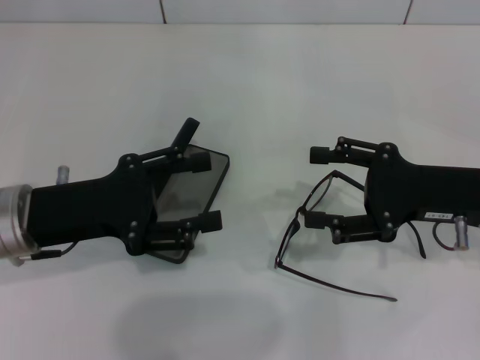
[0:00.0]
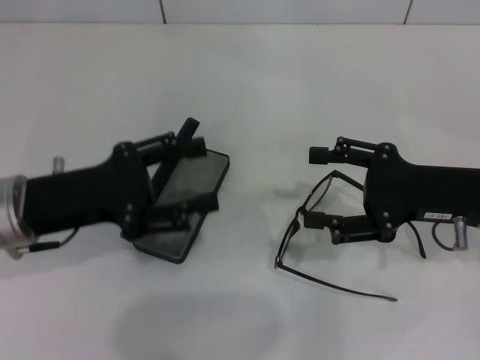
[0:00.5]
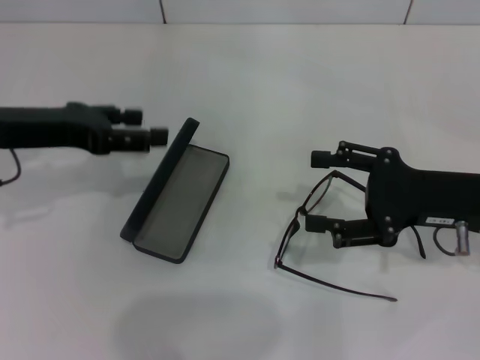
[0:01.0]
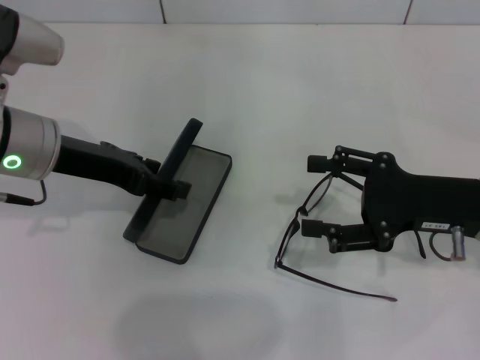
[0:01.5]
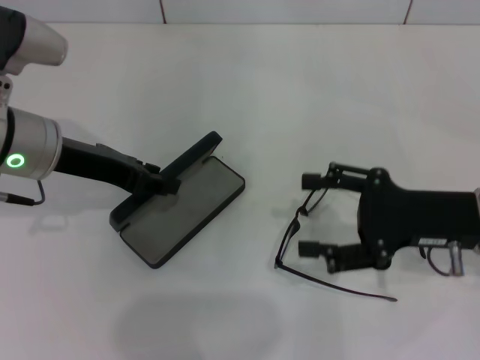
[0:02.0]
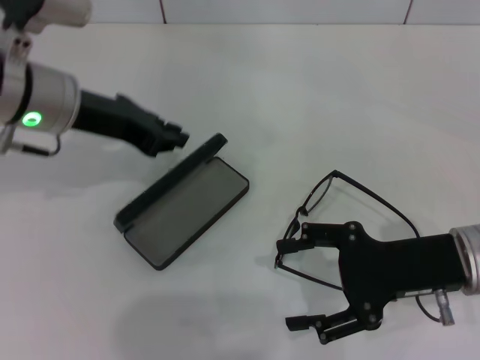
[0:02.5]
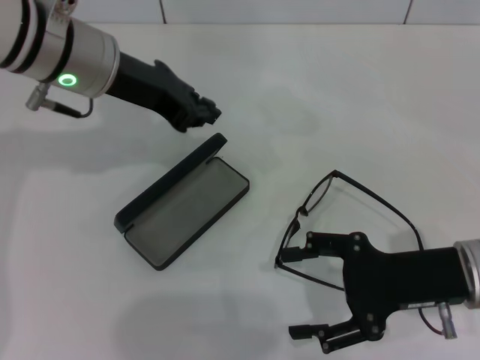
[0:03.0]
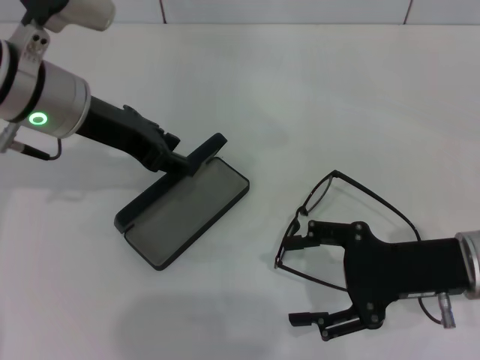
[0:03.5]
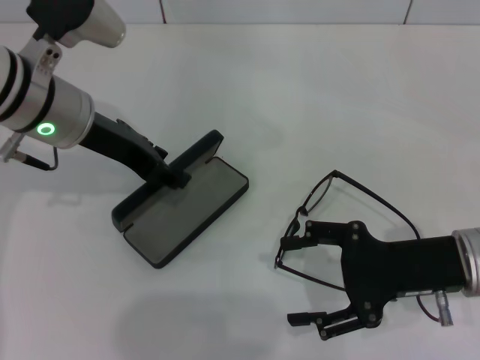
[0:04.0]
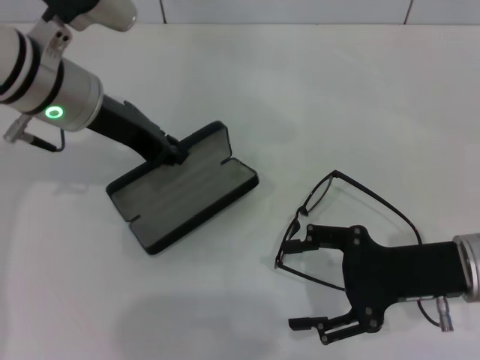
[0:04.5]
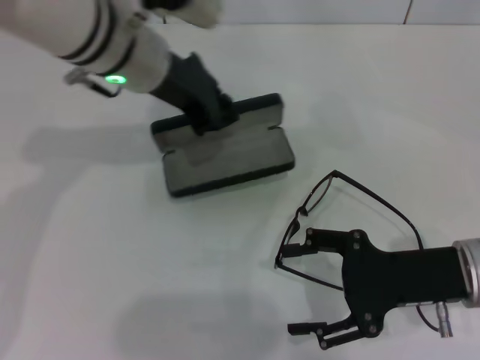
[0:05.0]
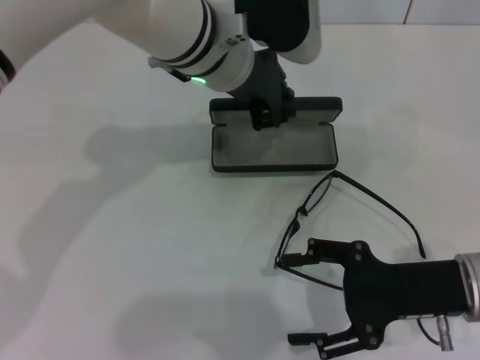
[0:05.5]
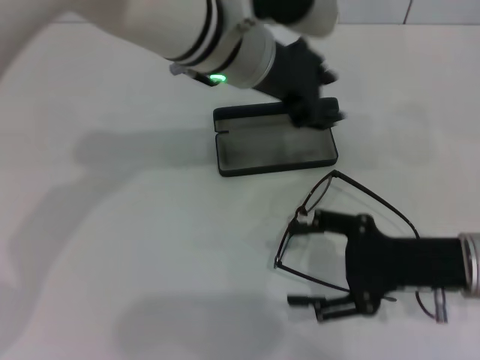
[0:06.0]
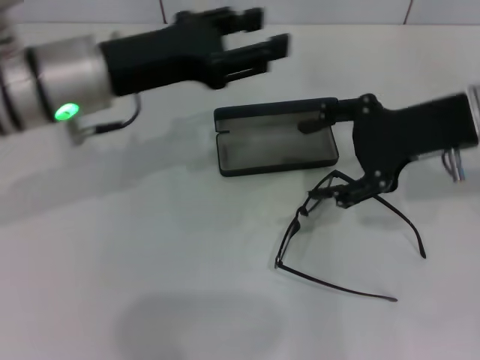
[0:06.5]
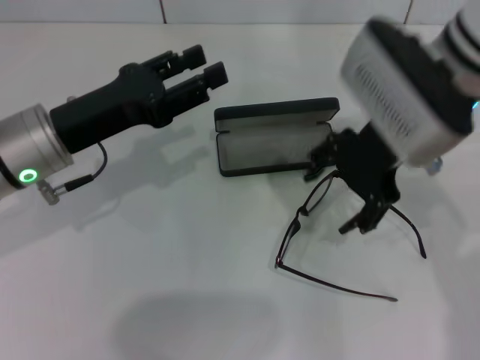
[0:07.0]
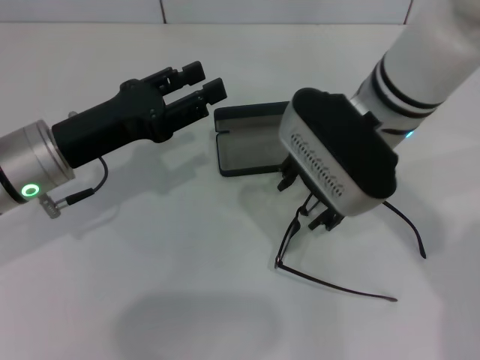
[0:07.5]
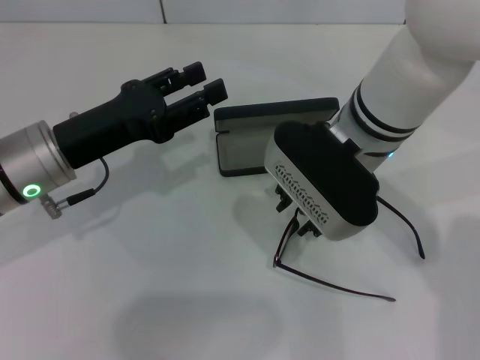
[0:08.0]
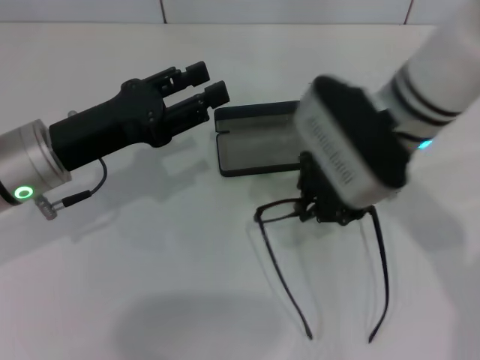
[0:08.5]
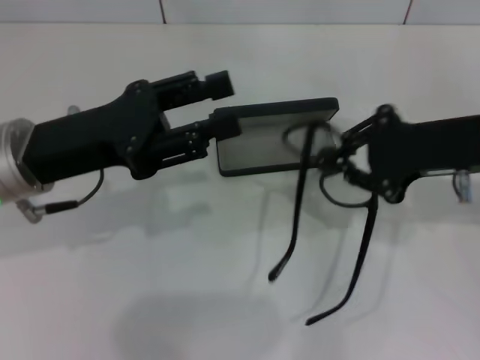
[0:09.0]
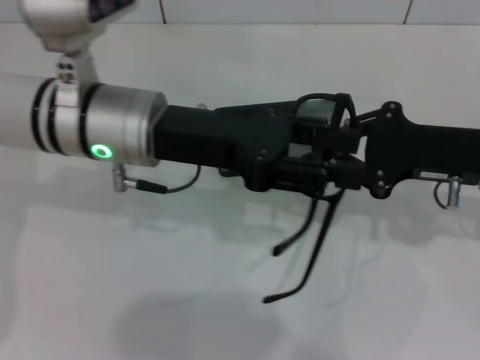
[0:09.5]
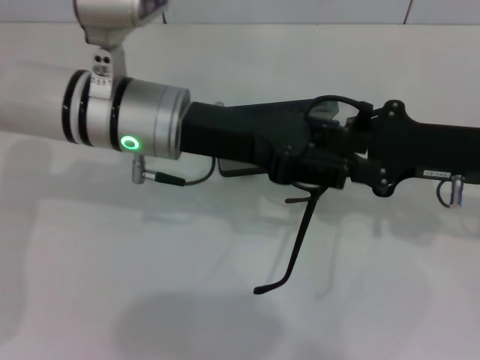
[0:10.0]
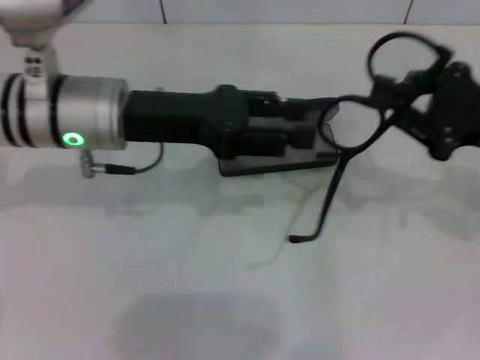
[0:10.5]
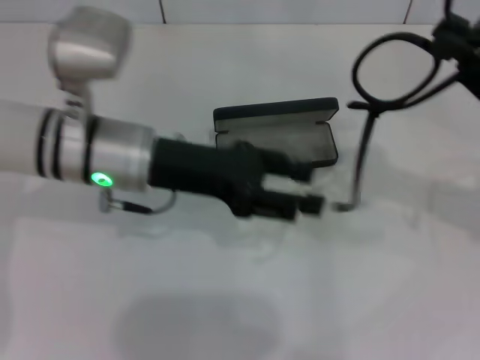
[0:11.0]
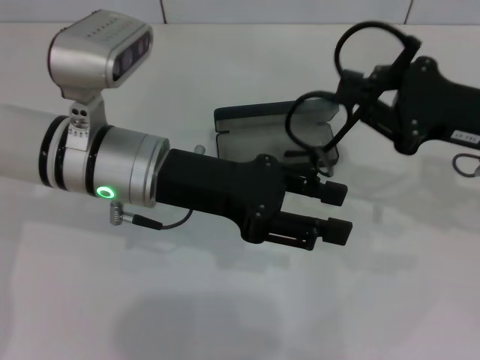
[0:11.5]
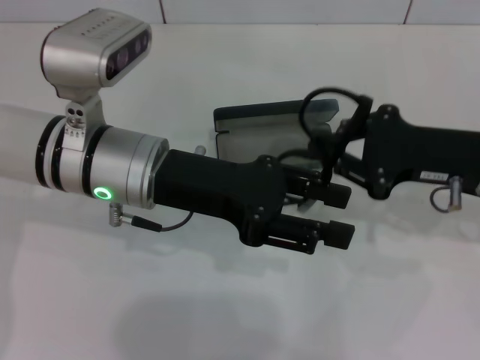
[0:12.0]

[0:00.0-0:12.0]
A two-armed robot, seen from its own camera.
Step, 0:00.0 to 0:04.0: Grab the glasses case with your left hand.
Step, 0:04.5 to 0:05.5: Place the glasses case in the center of the table with your left hand.
Step, 0:06.0 to 0:08.0: Grab the eyeglass frame with your right hand.
0:00.0 to 0:02.0: The left gripper goes about 5 cm forward.
0:02.0 to 0:04.0: The left gripper closes, then reopens.
0:04.0 to 0:06.0: The left gripper shifts about 15 cm to the right, and closes up.
0:06.0 to 0:08.0: The right gripper moves to the left, upward and forward, about 20 cm, and closes. The left gripper heads to the left, downward and backward, covering about 20 cm.
0:08.0 to 0:10.0: The left gripper heads to the right and upward, covering some 10 cm. Meanwhile the right gripper travels to the right by about 15 cm, and closes up.

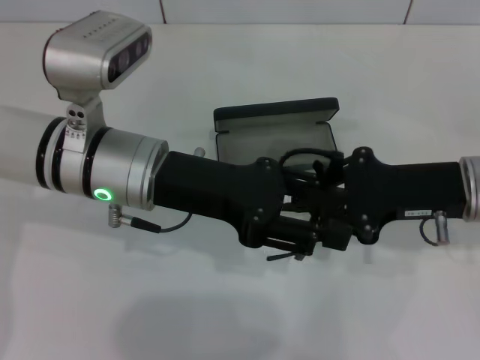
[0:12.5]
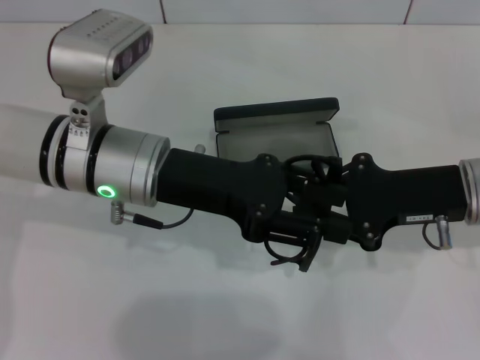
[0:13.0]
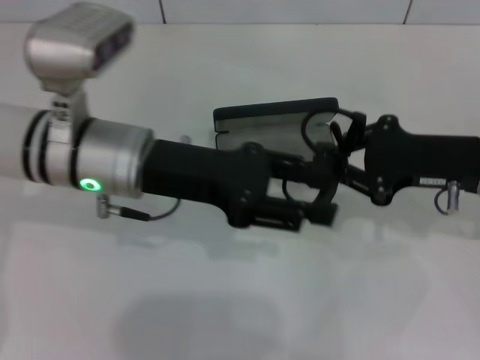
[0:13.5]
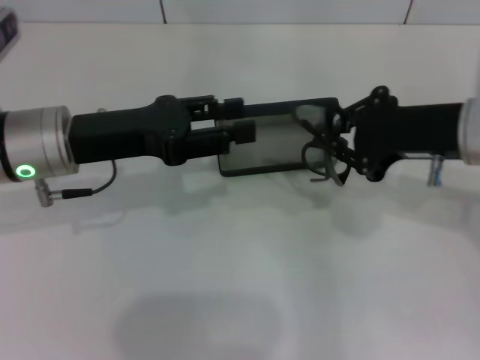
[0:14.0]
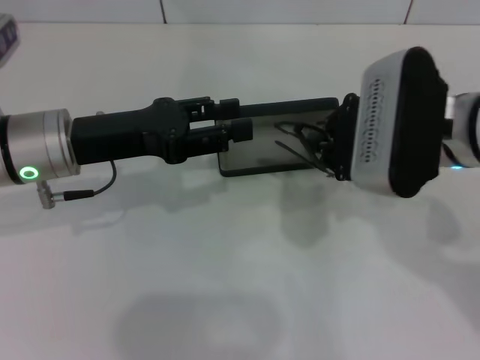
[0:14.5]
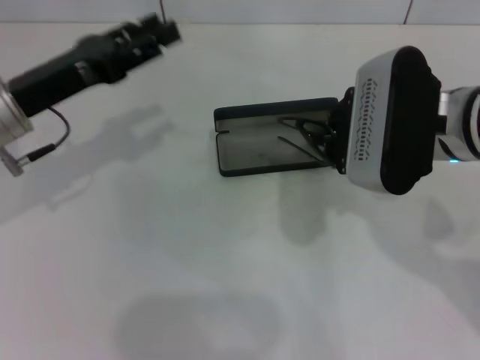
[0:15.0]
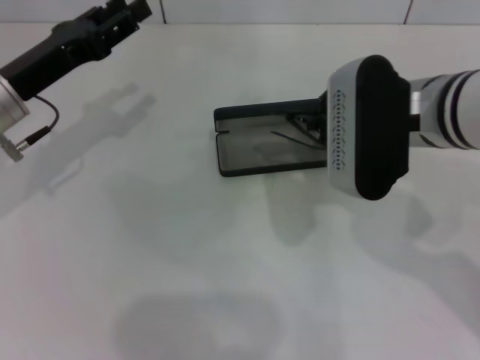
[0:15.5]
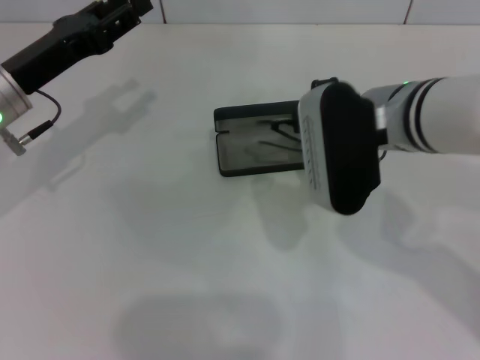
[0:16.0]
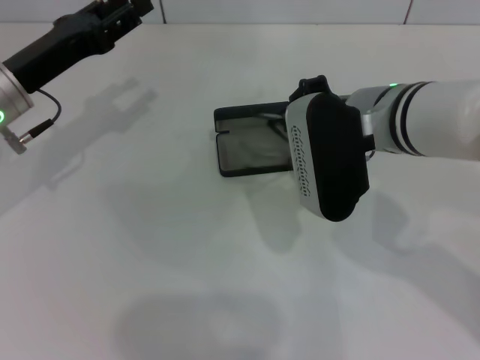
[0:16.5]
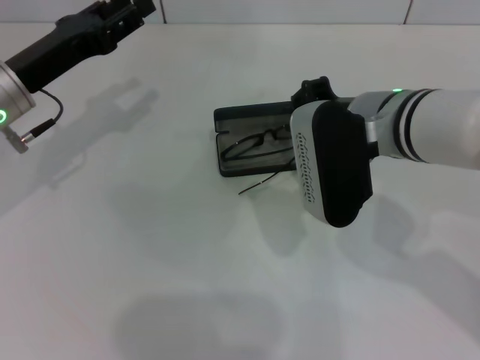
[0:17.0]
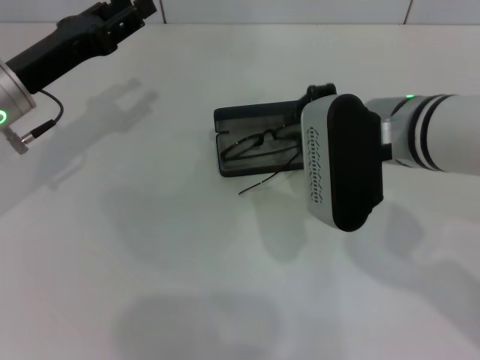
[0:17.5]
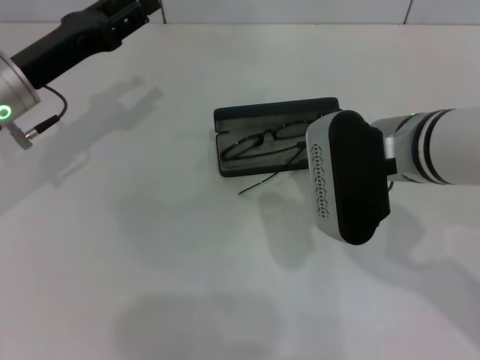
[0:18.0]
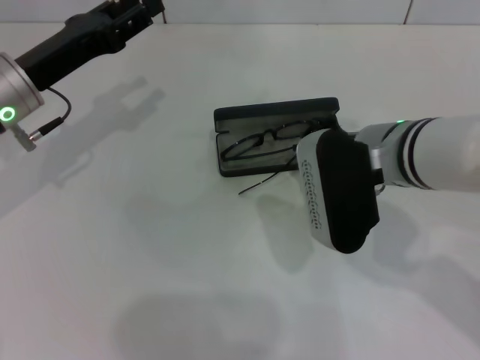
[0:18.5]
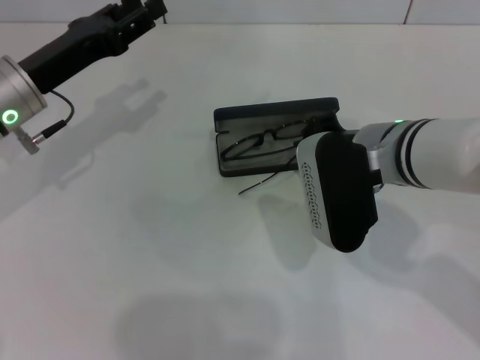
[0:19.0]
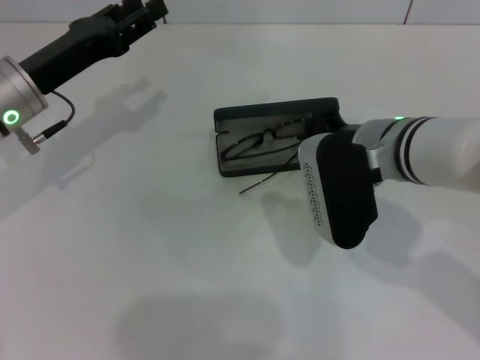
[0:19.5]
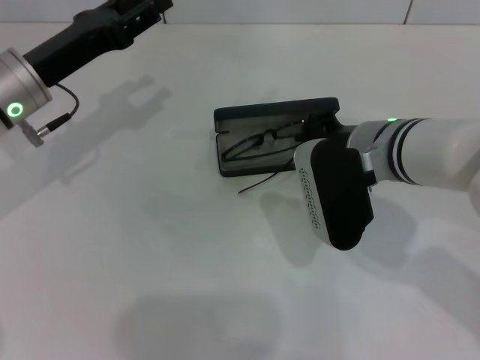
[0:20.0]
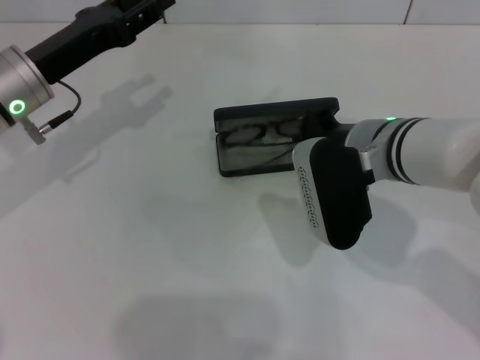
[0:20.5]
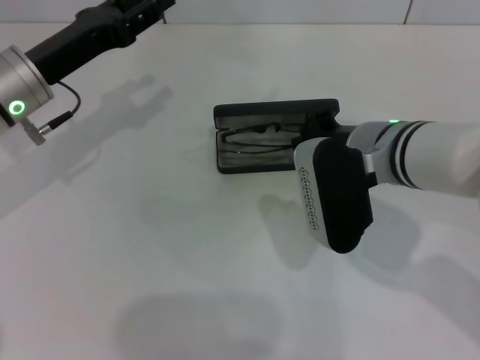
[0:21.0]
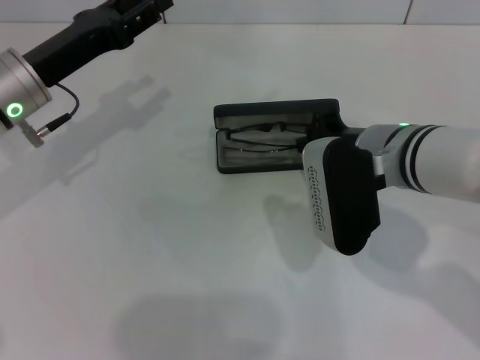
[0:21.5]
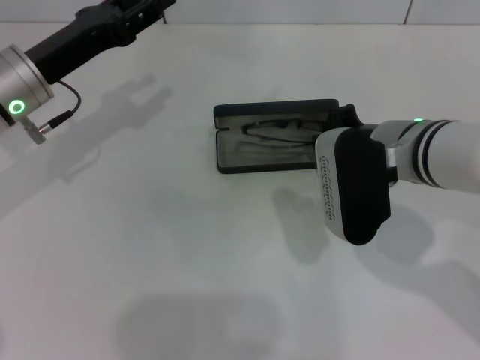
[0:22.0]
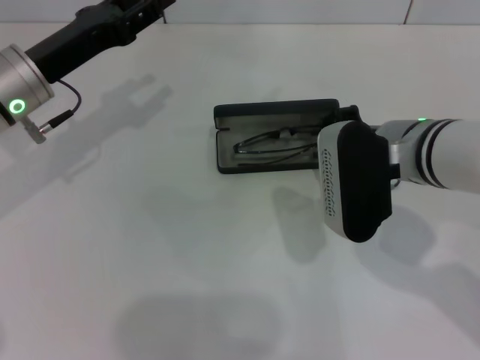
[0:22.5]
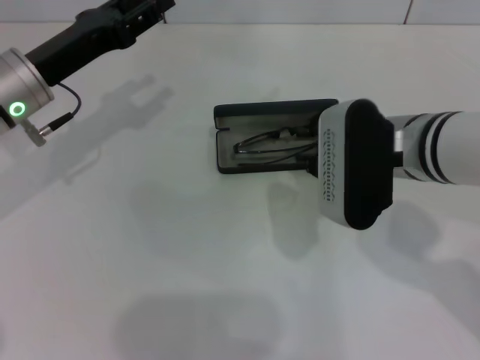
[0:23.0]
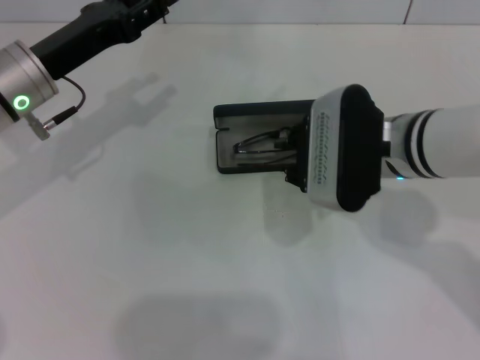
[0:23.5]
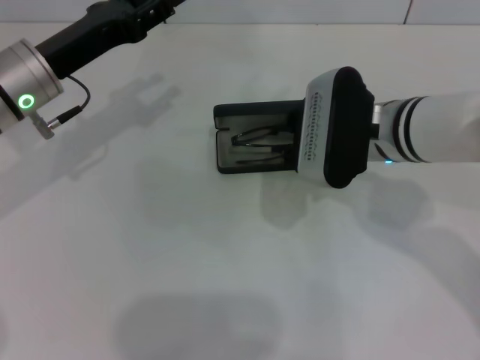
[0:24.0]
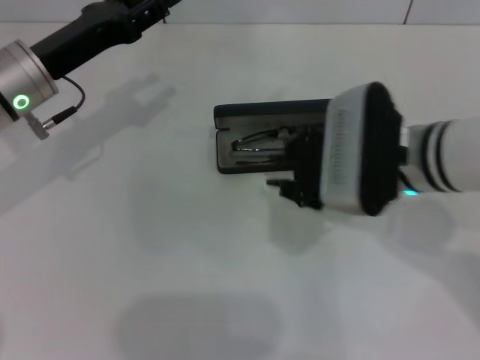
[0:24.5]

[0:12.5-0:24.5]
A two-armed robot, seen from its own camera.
0:12.5 to 0:14.5: The right gripper heads to the left and upward, covering roughly 10 cm. The left gripper travels to the left by some 10 cm.
0:14.5 to 0:16.5: The right gripper ends up approximately 5 cm from where it was; the left gripper shifts by approximately 5 cm.
0:16.5 to 0:22.5: The grippers stay close to where they were, moving slightly.

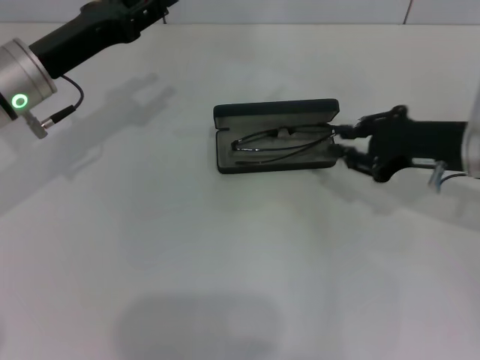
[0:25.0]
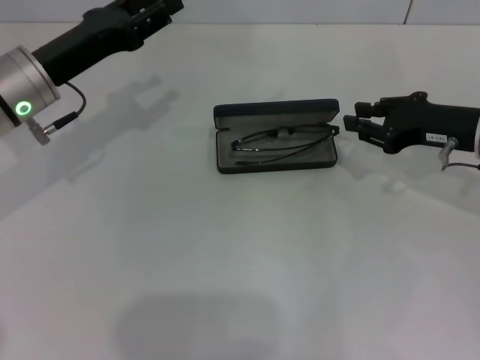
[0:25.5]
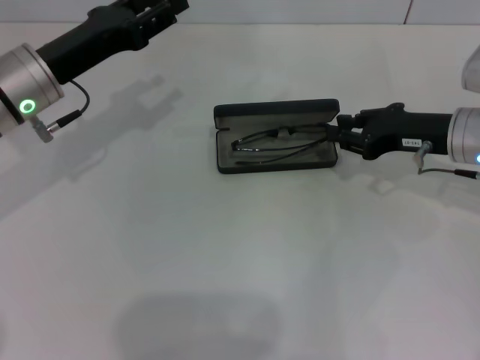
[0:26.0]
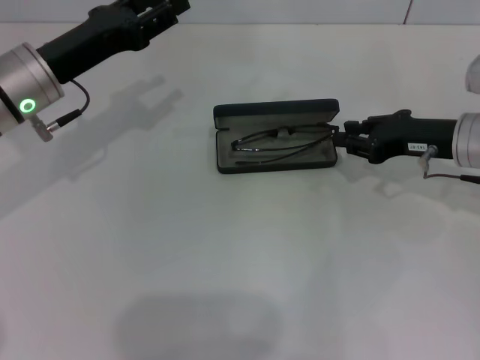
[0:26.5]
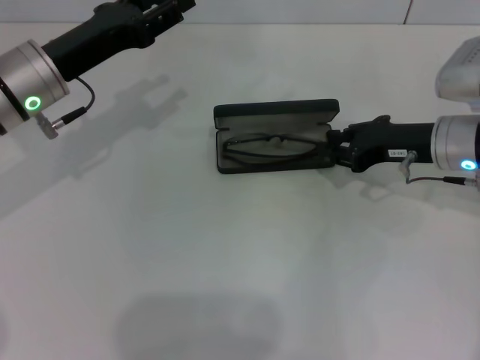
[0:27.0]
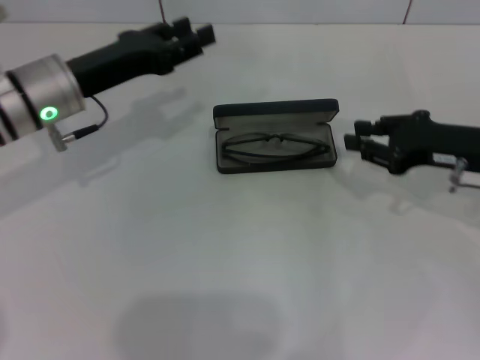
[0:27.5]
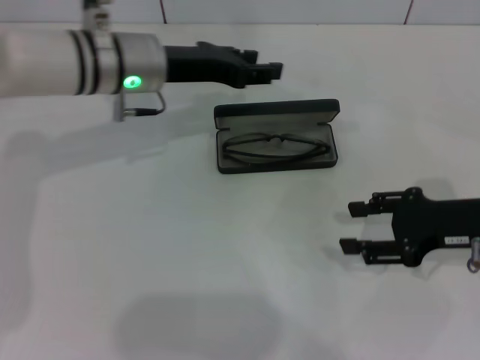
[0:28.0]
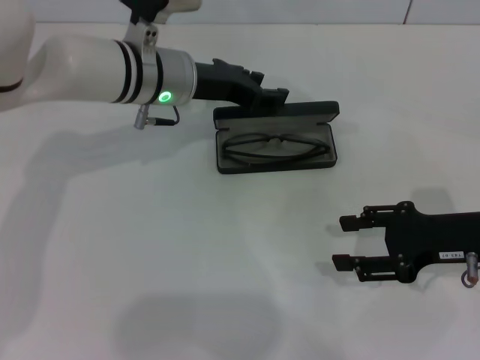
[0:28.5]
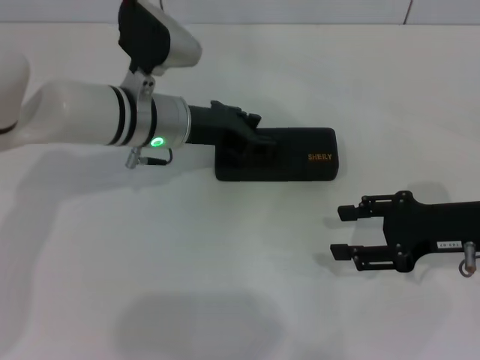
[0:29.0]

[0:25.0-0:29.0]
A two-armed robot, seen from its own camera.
Step, 0:25.0 to 0:27.0: Put the glasses into the case with your right hand.
0:25.0 to 0:27.0: The right gripper moves roughly 5 cm.
0:27.0 to 0:29.0: The left gripper moves to the right, some 10 cm. Meanwhile the right gripper goes some 10 cm backward.
